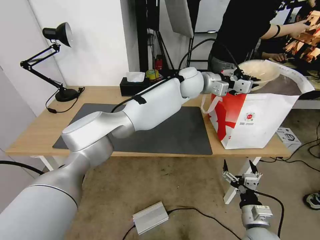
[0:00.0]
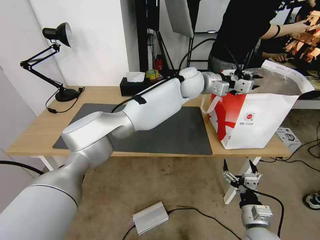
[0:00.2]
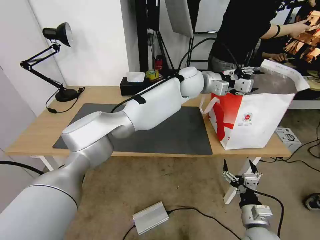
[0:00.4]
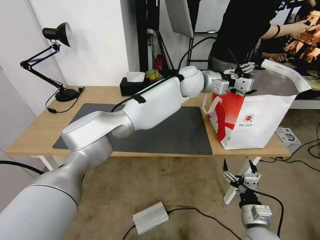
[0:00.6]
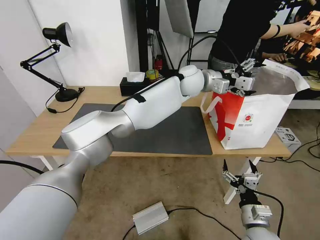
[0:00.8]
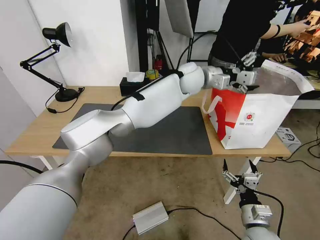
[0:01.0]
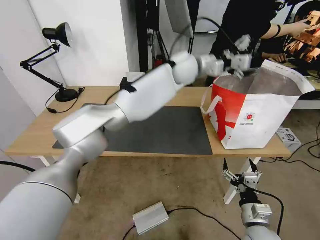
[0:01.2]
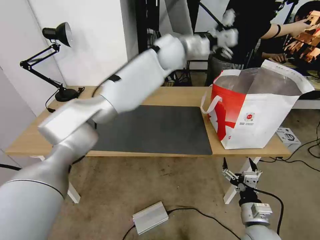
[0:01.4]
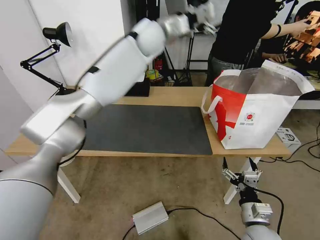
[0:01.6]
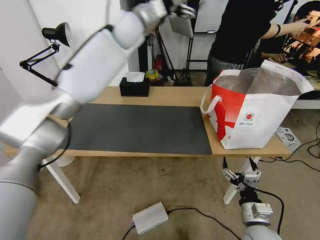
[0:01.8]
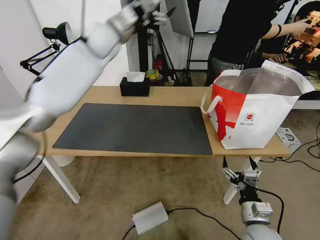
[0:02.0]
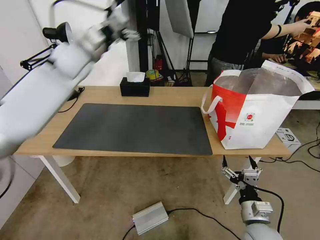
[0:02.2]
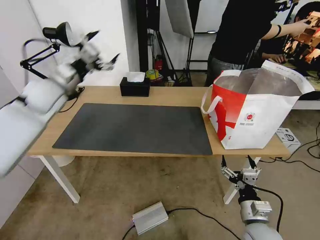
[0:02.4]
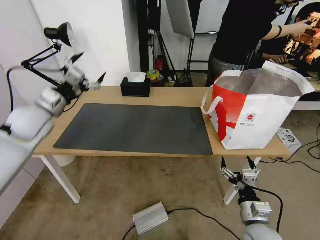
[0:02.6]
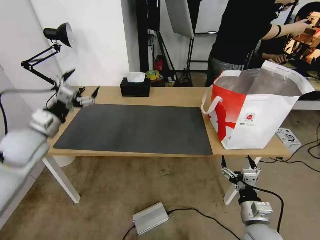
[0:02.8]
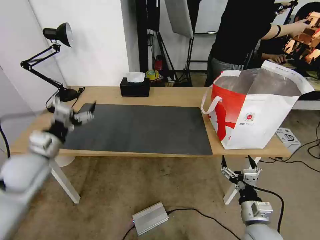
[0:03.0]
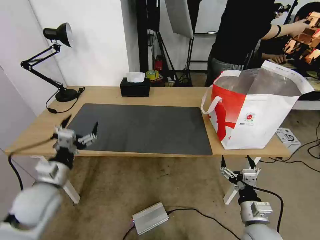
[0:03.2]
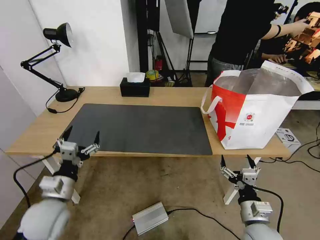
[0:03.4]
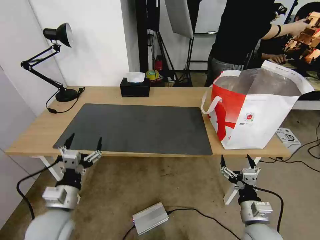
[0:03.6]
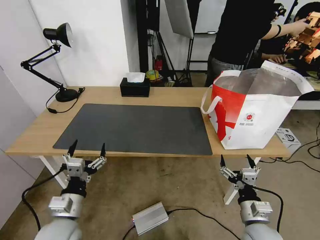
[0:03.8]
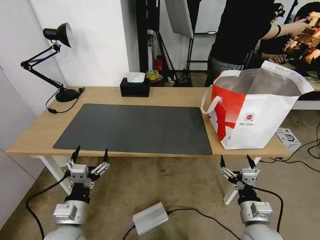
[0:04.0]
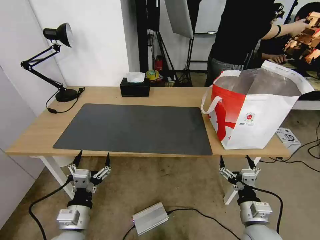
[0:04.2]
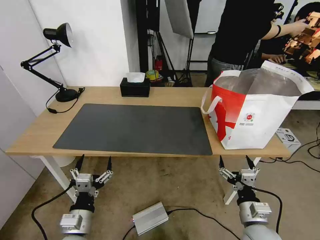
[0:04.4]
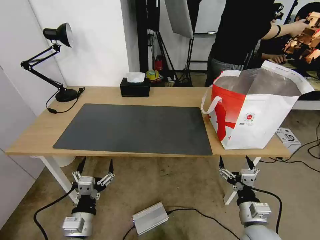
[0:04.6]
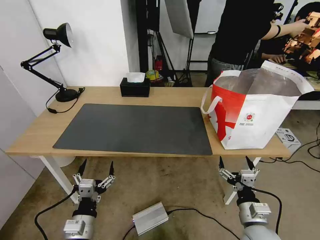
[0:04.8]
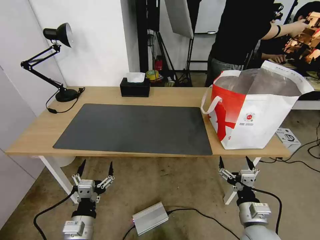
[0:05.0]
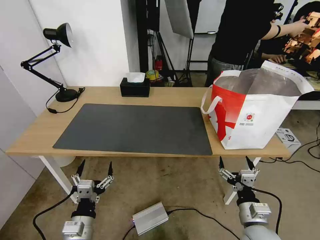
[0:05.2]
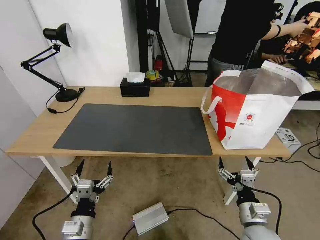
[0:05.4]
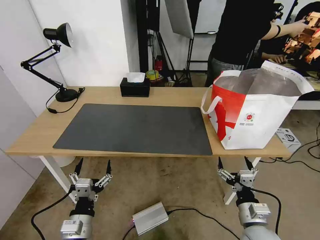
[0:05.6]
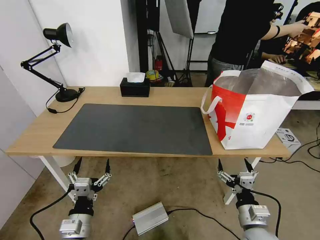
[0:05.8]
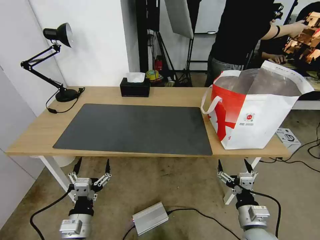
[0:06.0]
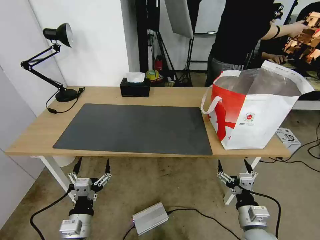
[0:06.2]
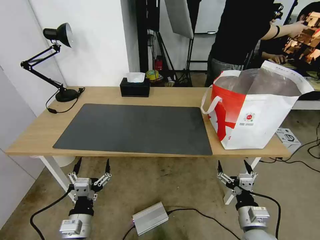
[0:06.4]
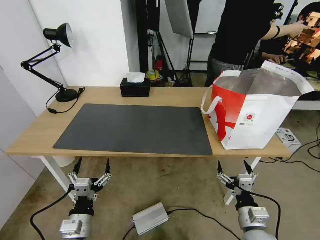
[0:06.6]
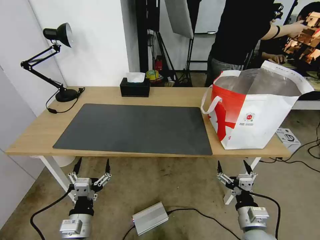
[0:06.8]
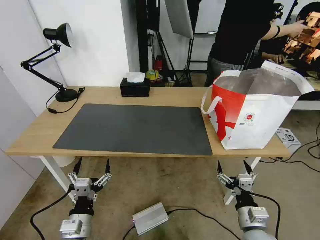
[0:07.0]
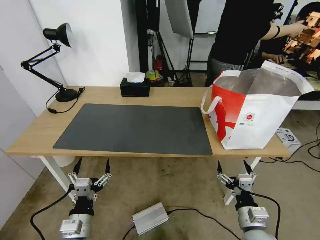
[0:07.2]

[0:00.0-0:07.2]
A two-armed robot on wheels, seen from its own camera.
Task of the whole recording: Pick up the trash from the table and place it into the takeout bag.
0:00.0 to 0:01.4: The left gripper moves upward and to the left, some 10 cm, and opens.
0:01.4 to 0:02.8: The left gripper heads to the left, backward and downward, covering roughly 50 cm.
0:02.8 to 0:04.4: The left gripper travels backward, downward and to the right by roughly 30 cm.
0:04.4 to 0:05.8: The grippers stay close to where they were, moving slightly.
0:05.8 to 0:07.2: Both grippers stay about where they are.
